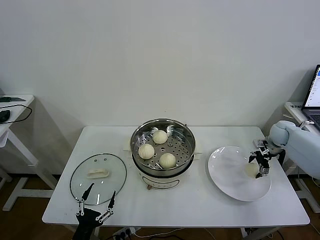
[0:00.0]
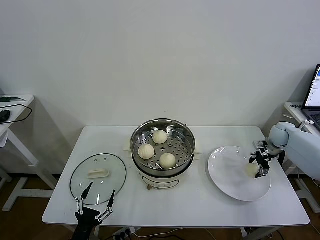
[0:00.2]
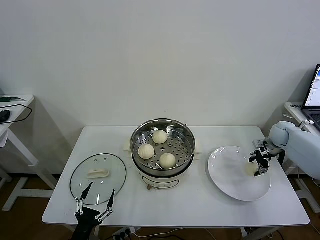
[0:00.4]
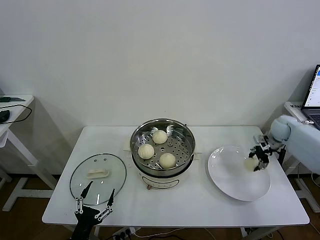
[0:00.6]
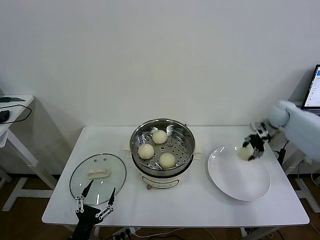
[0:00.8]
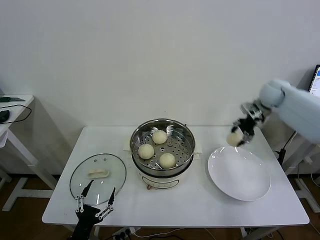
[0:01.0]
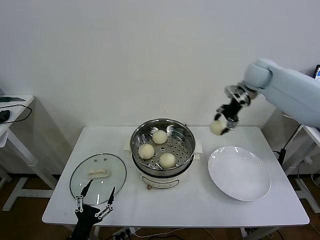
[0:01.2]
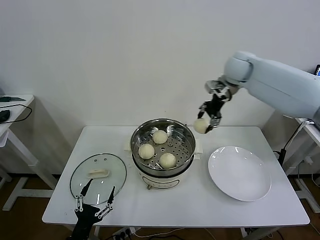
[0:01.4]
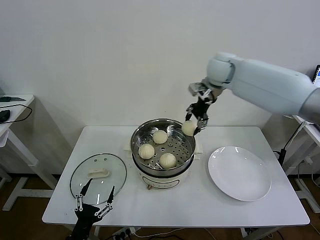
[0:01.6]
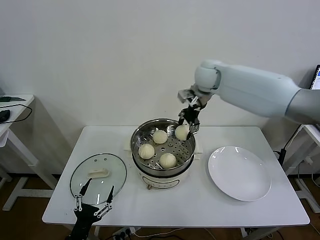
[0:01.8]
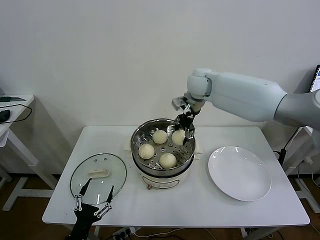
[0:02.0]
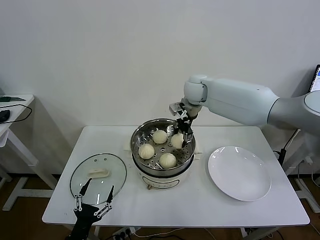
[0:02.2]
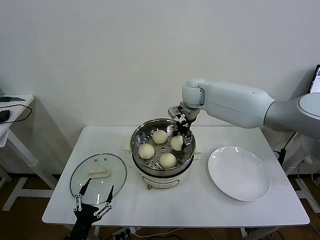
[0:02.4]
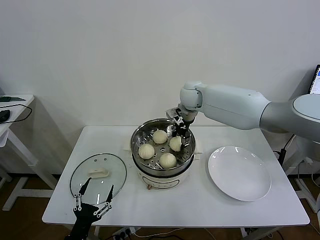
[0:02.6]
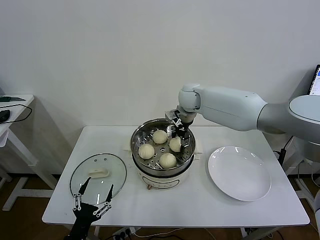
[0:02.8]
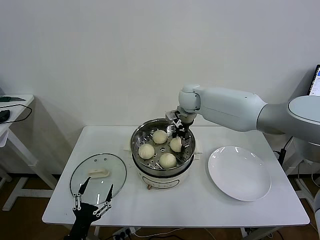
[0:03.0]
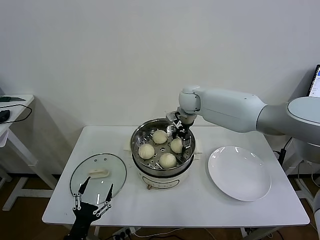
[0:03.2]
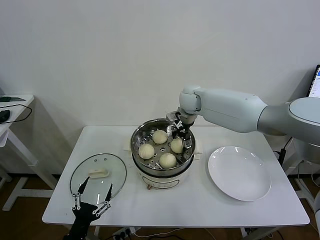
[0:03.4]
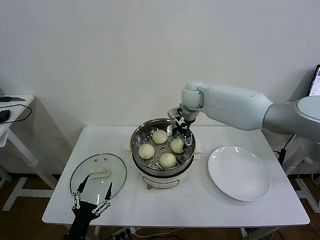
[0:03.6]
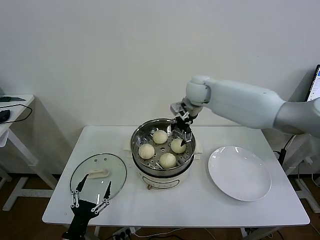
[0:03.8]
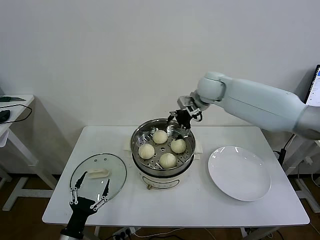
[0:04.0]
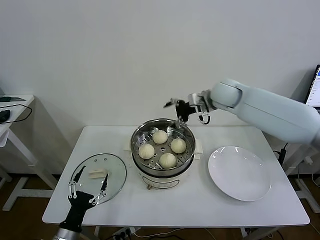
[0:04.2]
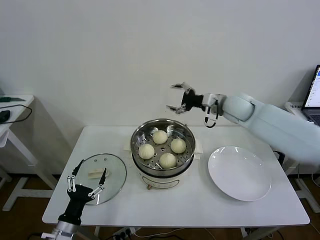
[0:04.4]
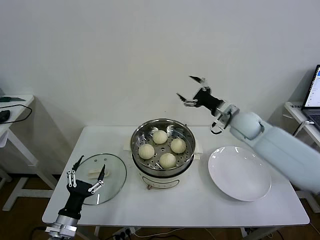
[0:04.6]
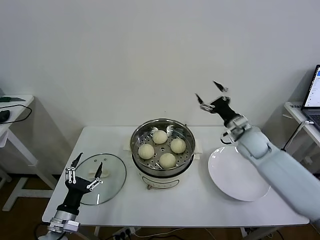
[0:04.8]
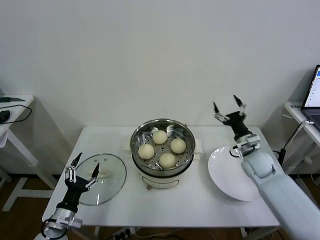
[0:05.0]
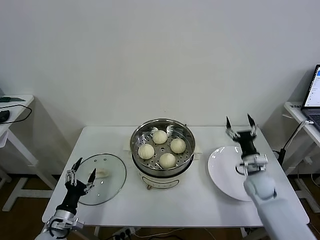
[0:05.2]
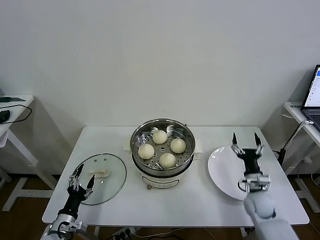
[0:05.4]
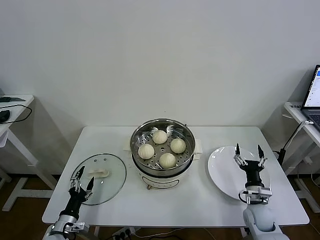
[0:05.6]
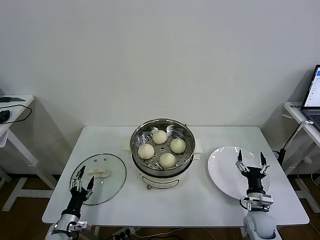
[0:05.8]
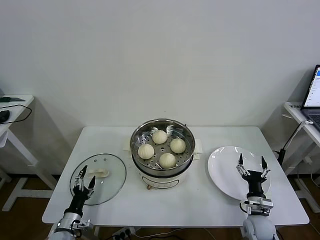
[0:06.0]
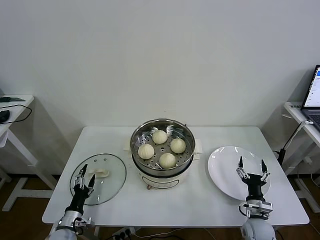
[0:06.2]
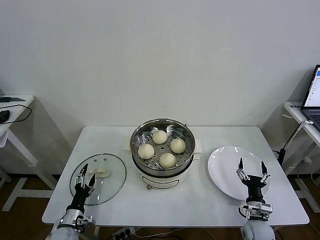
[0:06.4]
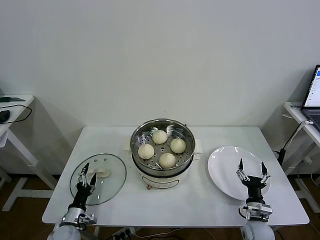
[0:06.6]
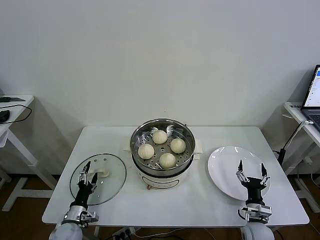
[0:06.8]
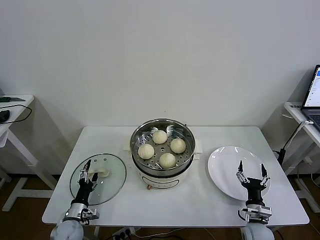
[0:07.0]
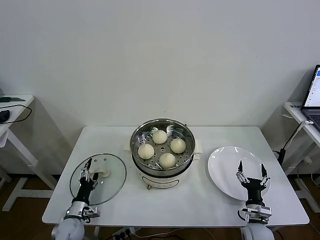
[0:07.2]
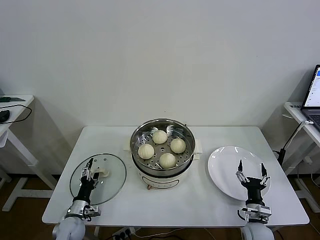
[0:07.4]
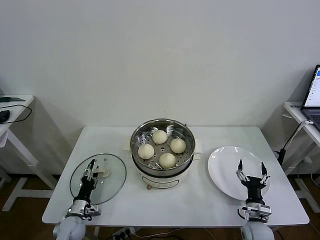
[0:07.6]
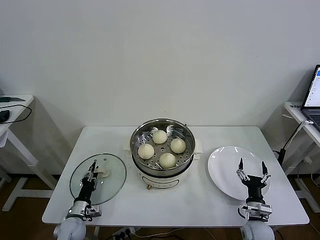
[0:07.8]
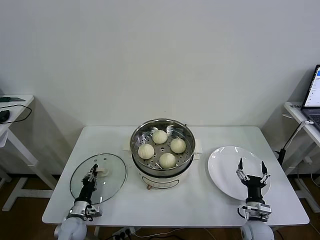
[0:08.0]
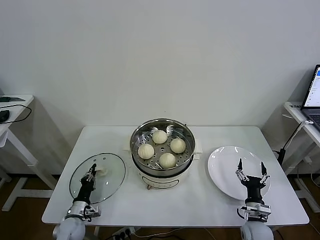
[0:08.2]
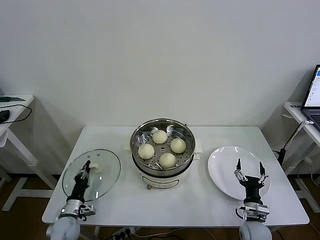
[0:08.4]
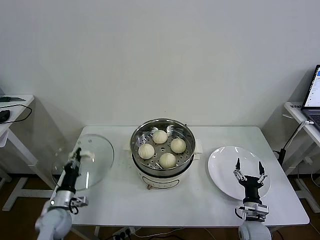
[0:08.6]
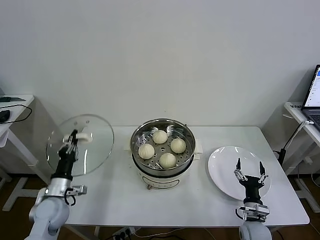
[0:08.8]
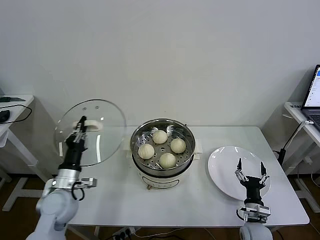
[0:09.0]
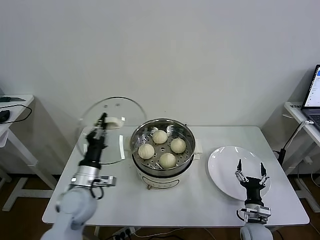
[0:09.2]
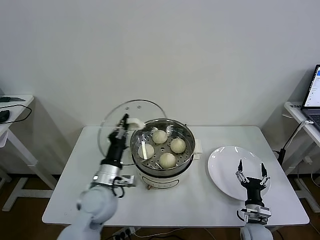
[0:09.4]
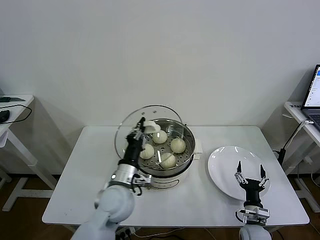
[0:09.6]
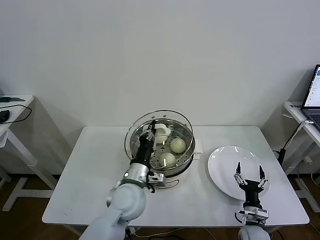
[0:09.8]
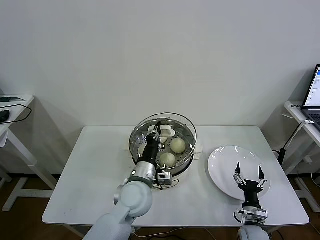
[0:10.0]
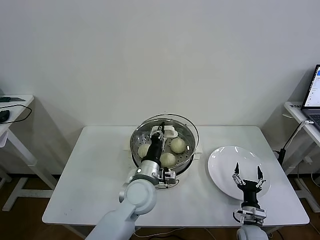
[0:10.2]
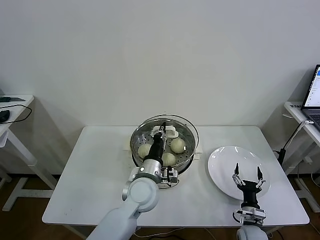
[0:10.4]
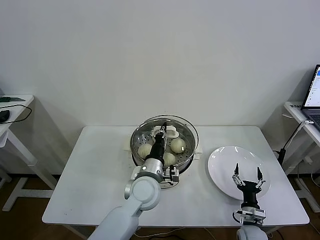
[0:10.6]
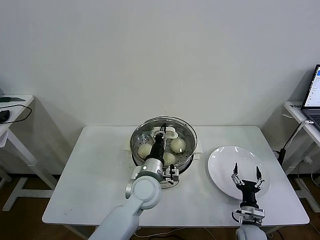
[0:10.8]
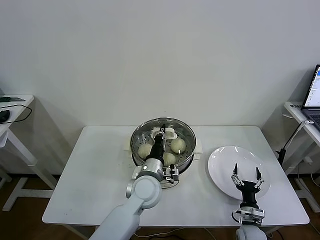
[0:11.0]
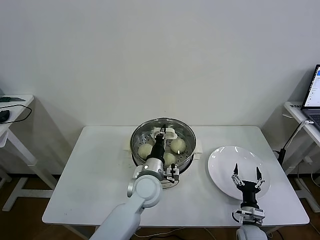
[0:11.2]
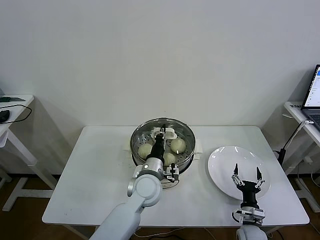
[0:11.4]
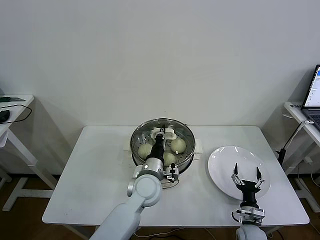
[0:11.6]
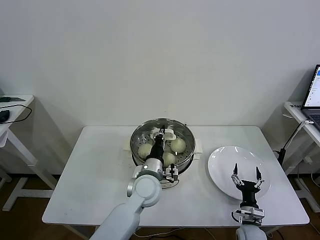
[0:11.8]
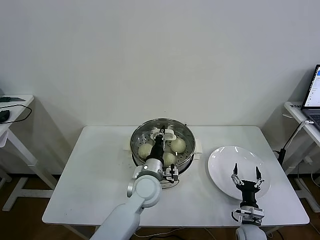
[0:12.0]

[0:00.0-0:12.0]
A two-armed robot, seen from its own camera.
Task of the whole recording: take steamed baozi put them in steamer then cover it.
Step, 0:00.6 to 0:03.4: Place the baozi on the steamer with right gripper.
Step, 0:03.6 to 0:08.2: Grasp the pot lid with left gripper.
0:00.0 to 0:01.6: The right gripper is displaced to the left and upward by roughly 40 cm, and closes its fingers.
0:01.6 to 0:03.0: The right gripper moves downward and to the left, approximately 15 cm.
0:03.0 to 0:04.4: The left gripper shifts by roughly 5 cm. Meanwhile the right gripper travels to the right and backward by about 15 cm, and opens its fingers.
0:04.4 to 0:06.0: The left gripper is displaced downward and forward by approximately 10 cm, while the right gripper goes approximately 40 cm downward and backward.
0:06.0 to 0:07.6: The left gripper is displaced forward by some 5 cm, and closes.
0:07.6 to 0:09.0: The left gripper moves upward, approximately 20 cm, and closes.
0:09.0 to 0:10.4: The left gripper is displaced to the right by approximately 25 cm.
0:10.4 to 0:12.0: The grippers make only small movements.

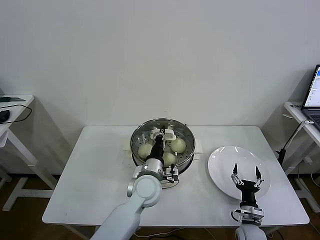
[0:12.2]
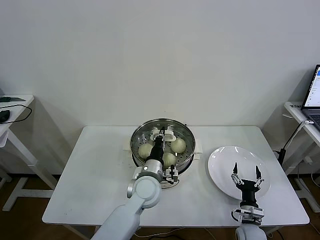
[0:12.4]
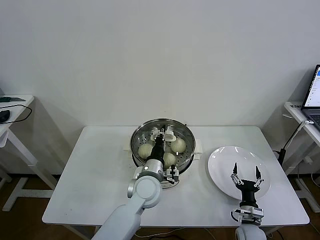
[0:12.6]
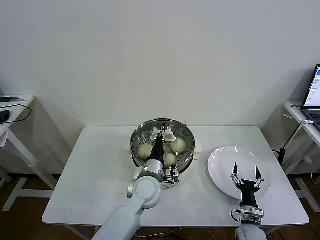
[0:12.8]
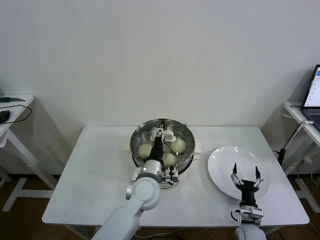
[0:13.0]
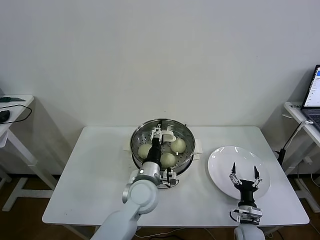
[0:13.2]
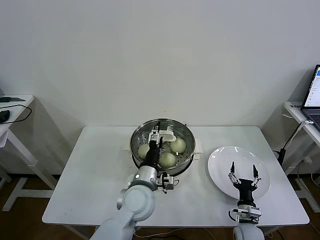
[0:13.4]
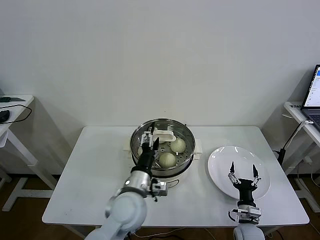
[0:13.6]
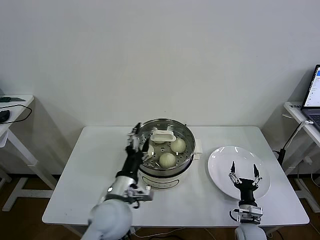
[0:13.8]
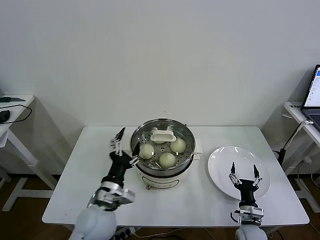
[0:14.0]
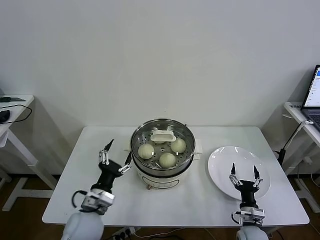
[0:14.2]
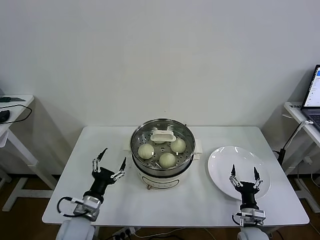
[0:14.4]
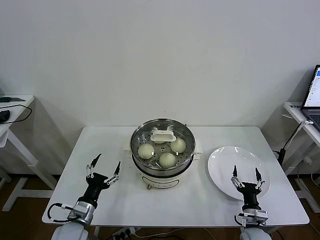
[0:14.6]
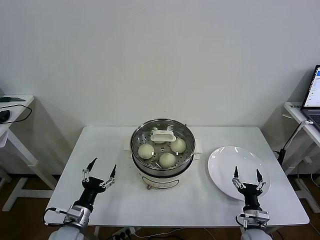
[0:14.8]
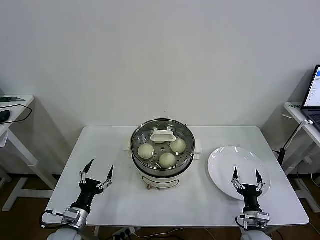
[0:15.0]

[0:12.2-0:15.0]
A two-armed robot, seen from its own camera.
Task of the whole recording: take steamed baozi put them in steamer then cover it.
0:12.2 to 0:13.6: The left gripper goes roughly 5 cm backward, and opens up.
0:13.6 to 0:15.0: The left gripper is displaced to the left and downward by roughly 25 cm.
